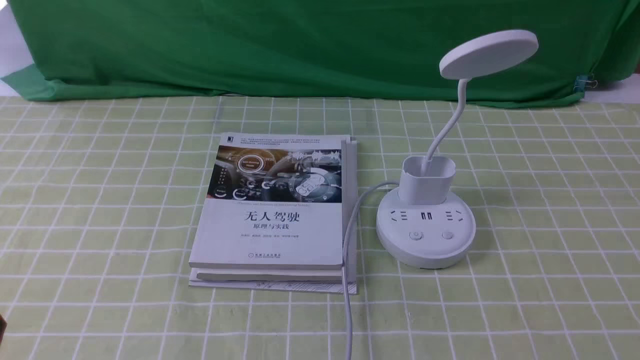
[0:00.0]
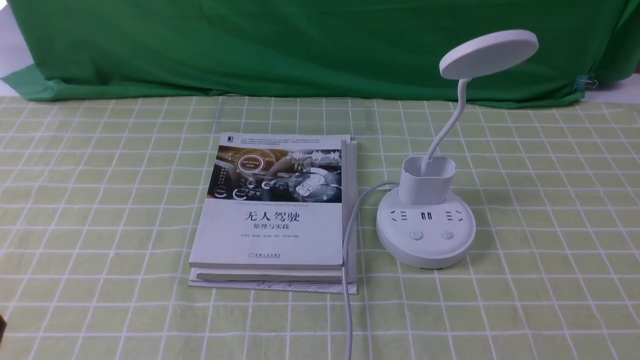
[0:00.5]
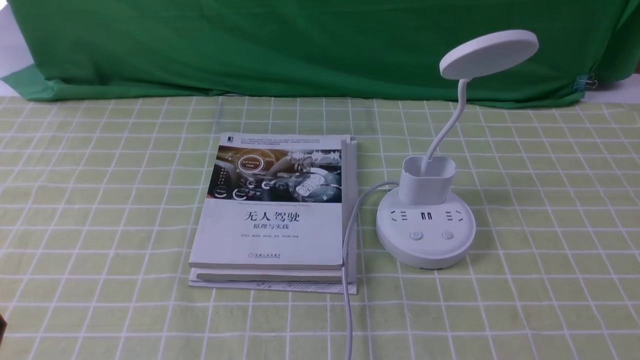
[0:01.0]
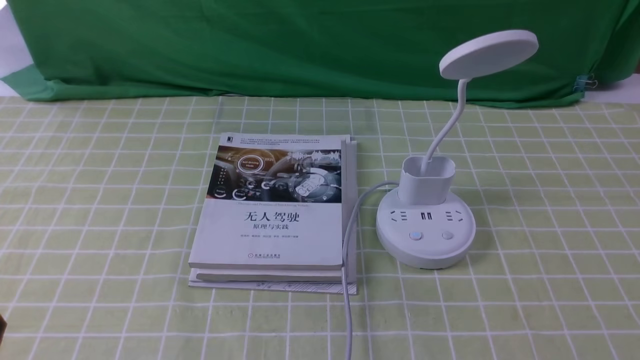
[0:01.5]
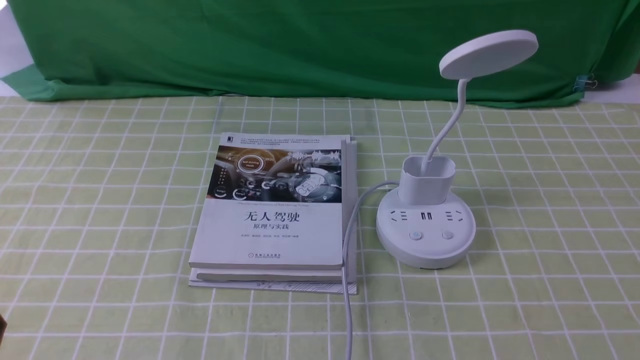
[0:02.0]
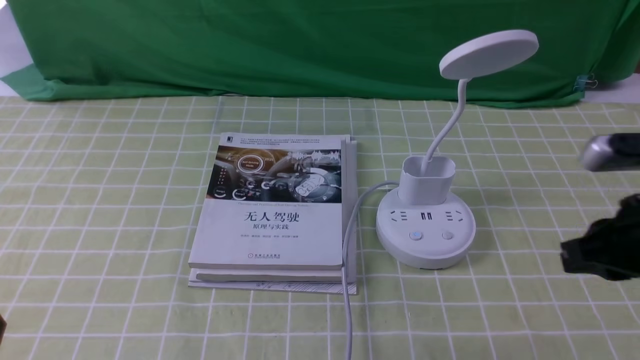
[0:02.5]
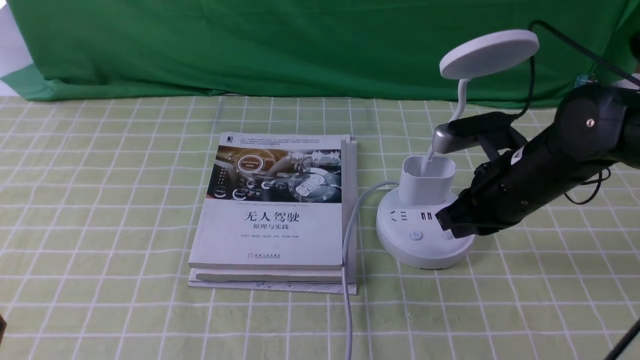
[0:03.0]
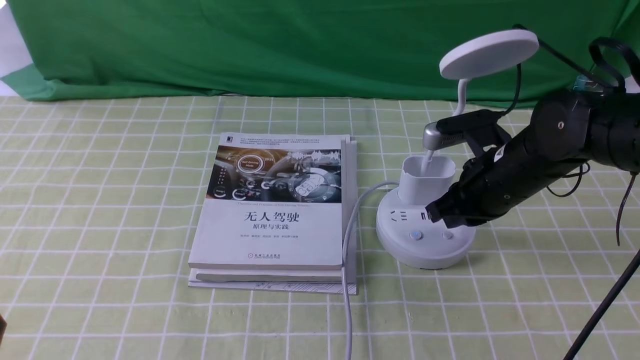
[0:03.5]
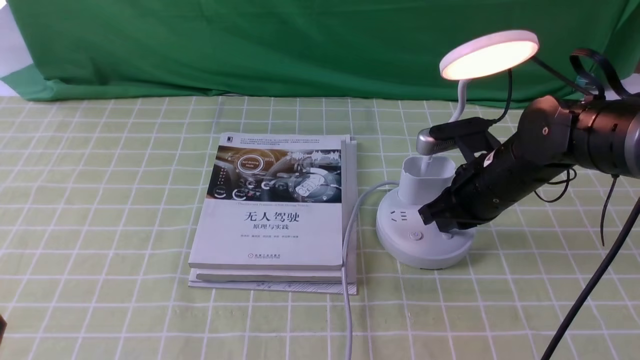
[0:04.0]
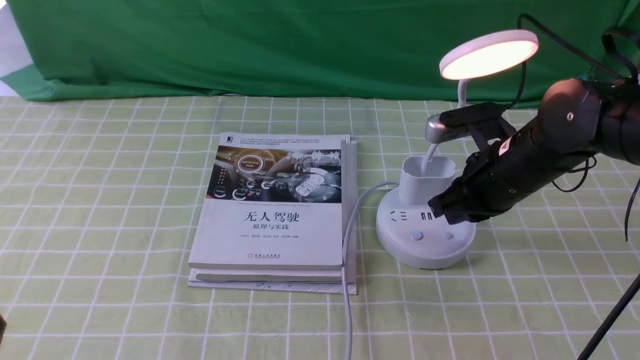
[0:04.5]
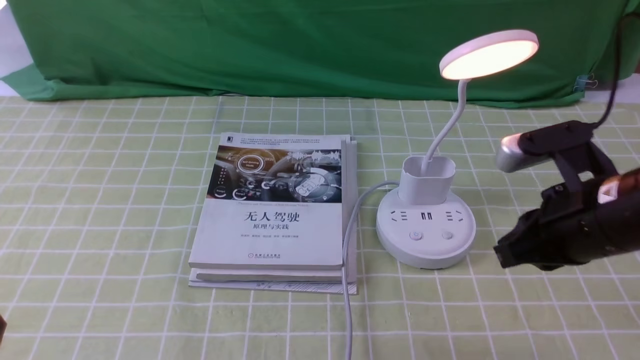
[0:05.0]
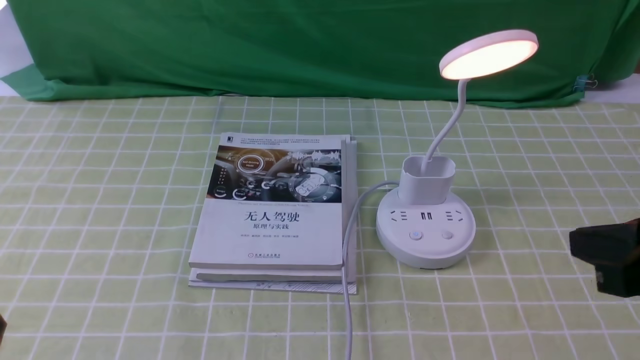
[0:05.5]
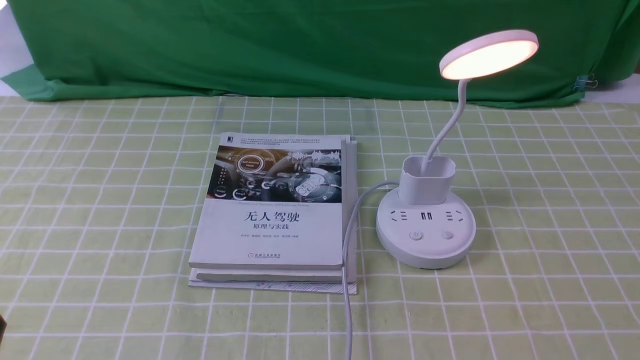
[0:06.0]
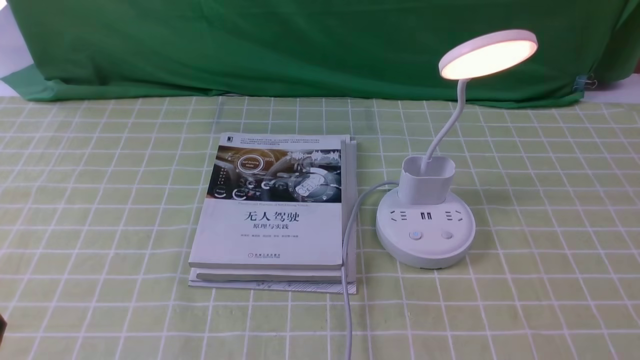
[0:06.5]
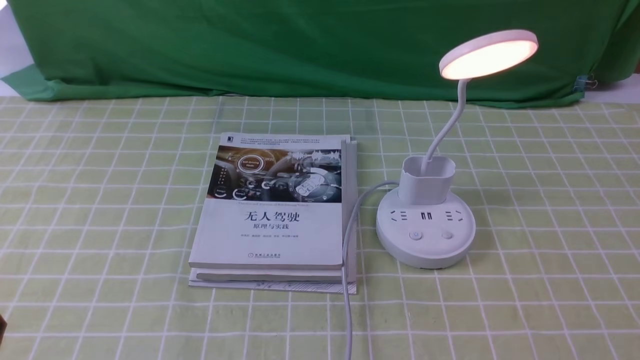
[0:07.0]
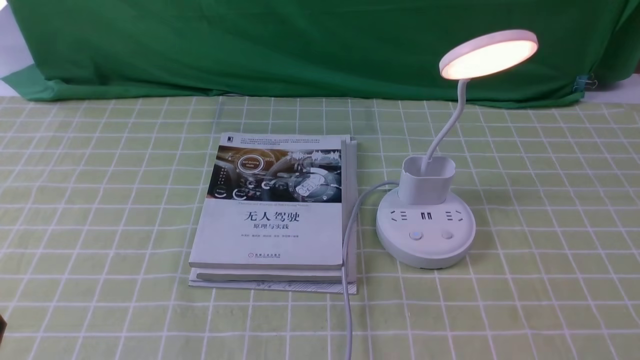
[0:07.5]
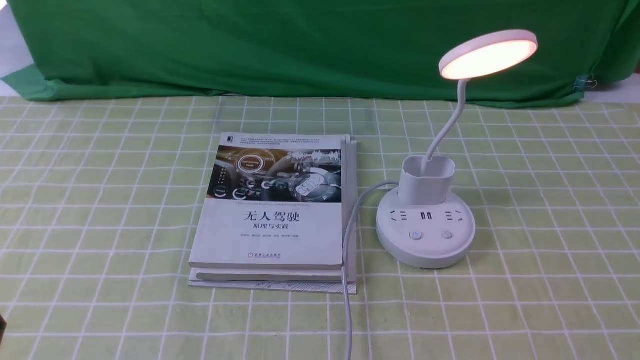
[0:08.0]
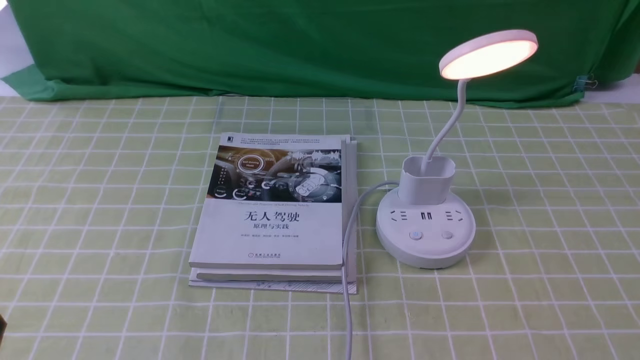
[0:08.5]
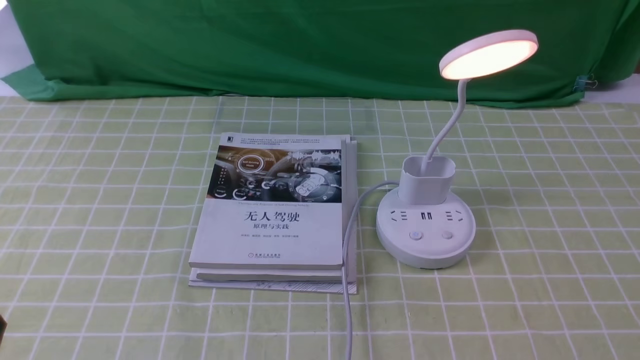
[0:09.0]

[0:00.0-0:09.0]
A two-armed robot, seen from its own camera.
Step, 0:00.0 to 0:04.0: use the right arm to press the button switch on the lamp holder.
0:02.0 to 0:04.5: The right gripper travels forward and to the left by approximately 25 cm.
0:04.5 to 0:07.0: The right gripper heads backward and to the right, covering approximately 30 cm.
